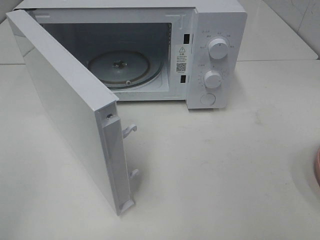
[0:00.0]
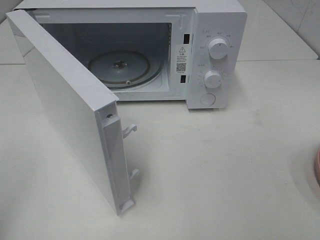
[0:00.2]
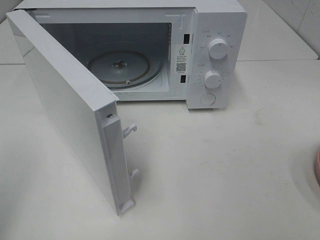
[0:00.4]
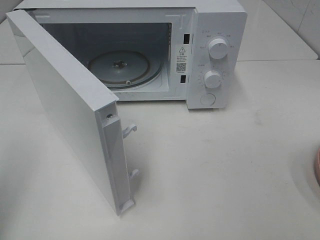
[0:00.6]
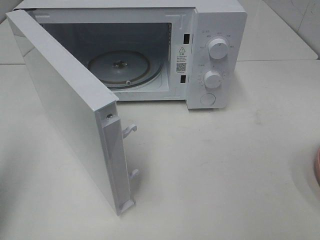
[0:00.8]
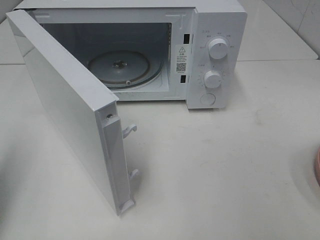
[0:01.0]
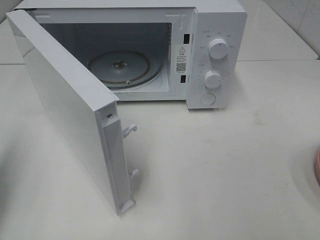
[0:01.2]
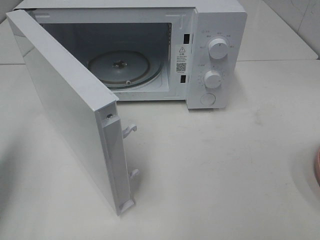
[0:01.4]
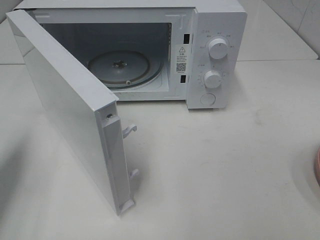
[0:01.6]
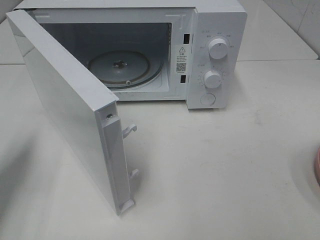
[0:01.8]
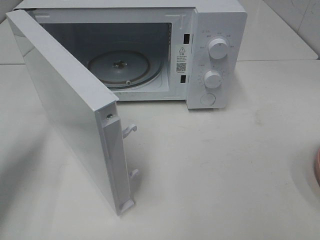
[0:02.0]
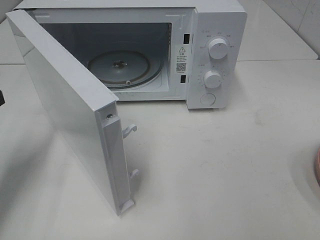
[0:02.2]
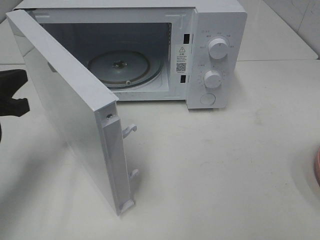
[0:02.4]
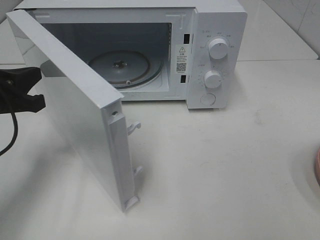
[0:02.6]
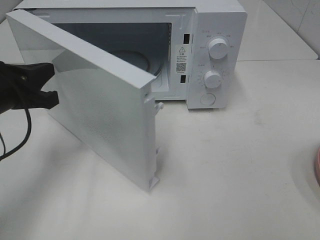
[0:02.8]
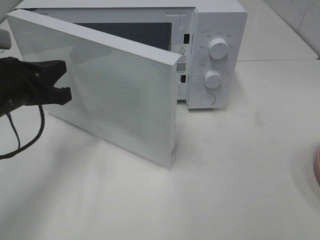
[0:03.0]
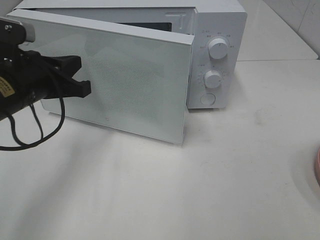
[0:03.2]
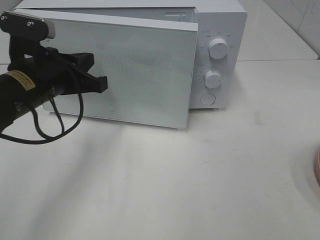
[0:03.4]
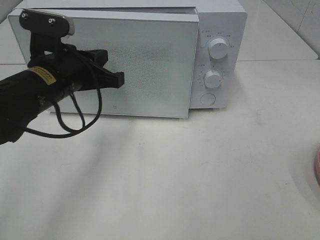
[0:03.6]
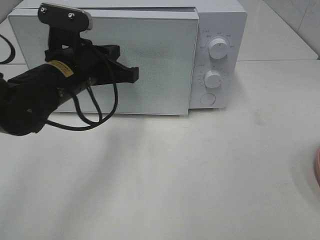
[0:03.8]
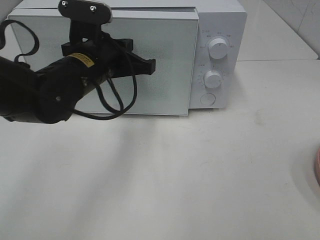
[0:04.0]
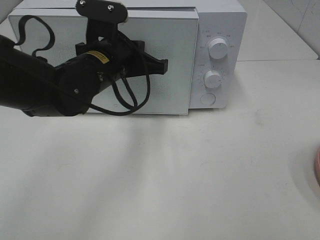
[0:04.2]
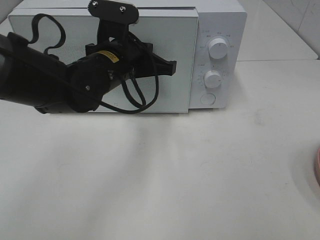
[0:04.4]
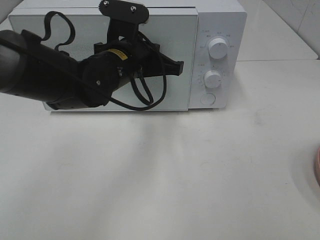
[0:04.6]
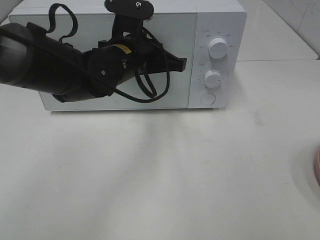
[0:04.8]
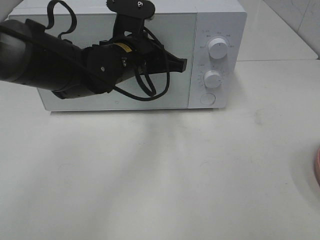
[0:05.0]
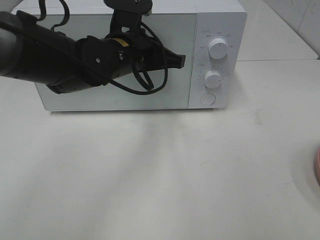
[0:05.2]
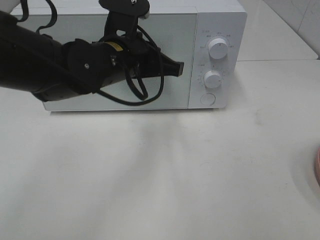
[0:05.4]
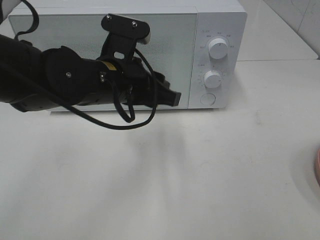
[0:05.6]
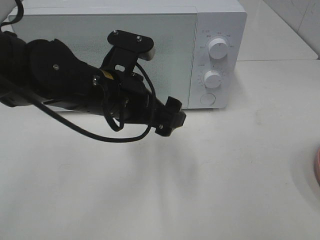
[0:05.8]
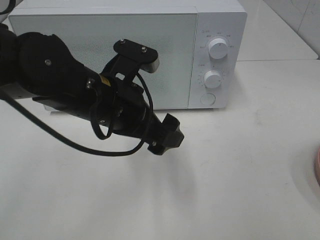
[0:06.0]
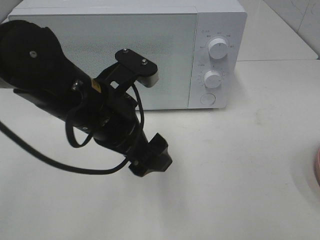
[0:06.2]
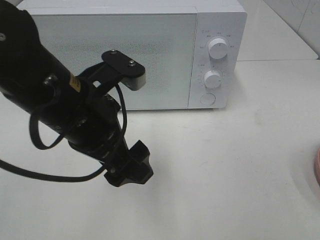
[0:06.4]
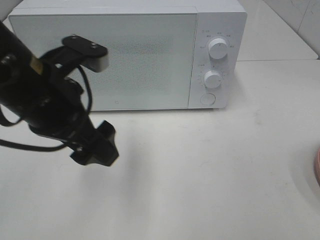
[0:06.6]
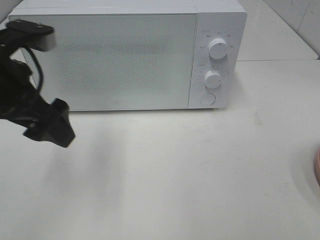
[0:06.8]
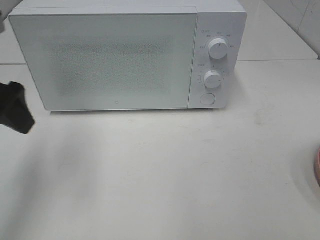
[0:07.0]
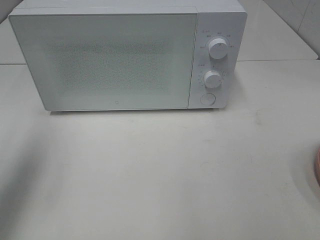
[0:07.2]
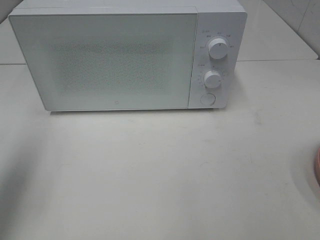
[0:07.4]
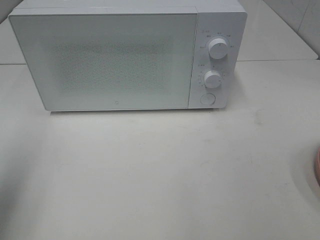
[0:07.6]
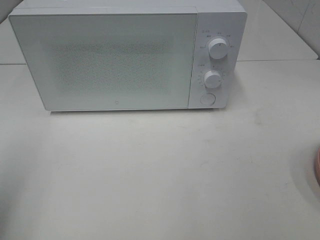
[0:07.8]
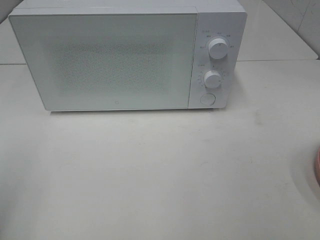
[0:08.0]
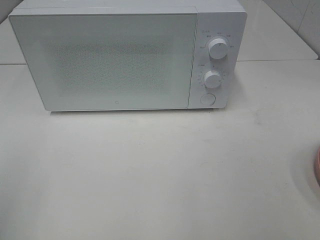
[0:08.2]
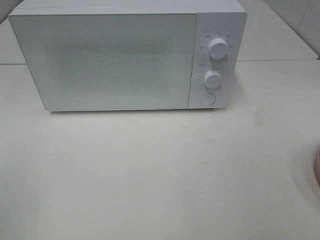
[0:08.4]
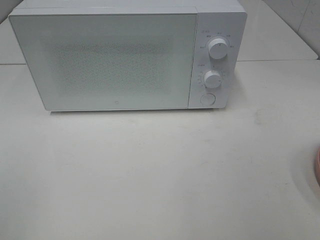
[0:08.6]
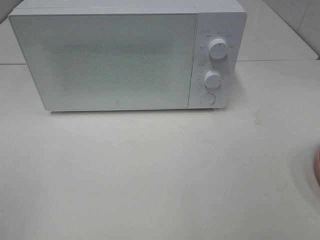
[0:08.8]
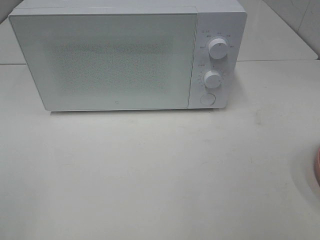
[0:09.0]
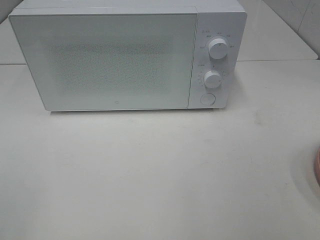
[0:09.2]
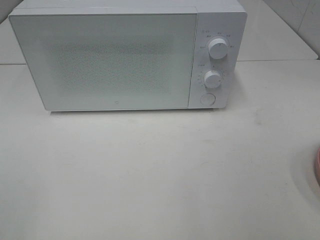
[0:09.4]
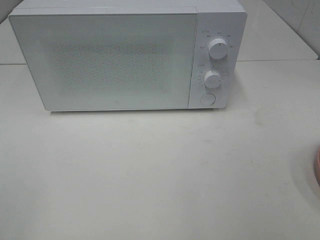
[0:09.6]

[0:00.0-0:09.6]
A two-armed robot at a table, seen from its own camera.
Task of the whole recording: Heat the burger.
Step, 0:00.0 to 0:05.6: Left hand: close the microwave door.
0:00.0 to 0:01.6: The left gripper moves forward and downward, approximately 20 cm, and closes its fingers.
0:01.6 to 0:03.2: The left gripper goes roughly 15 cm to the right and forward.
0:03.2 to 0:04.8: The left gripper moves to the right and forward, about 15 cm.
0:04.8 to 0:06.4: The left gripper travels backward by roughly 15 cm, and opens its fingers.
0:06.4 to 0:08.0: The left gripper shifts roughly 25 cm to the left and backward.

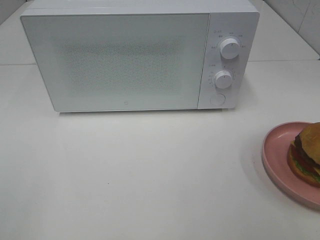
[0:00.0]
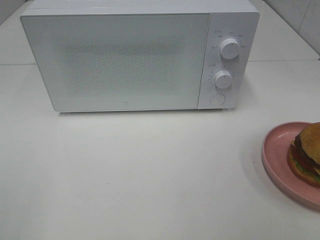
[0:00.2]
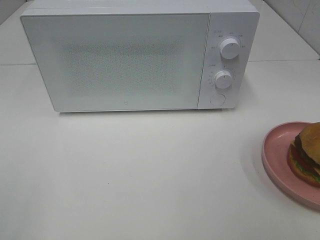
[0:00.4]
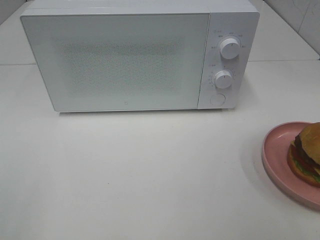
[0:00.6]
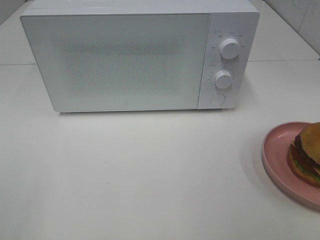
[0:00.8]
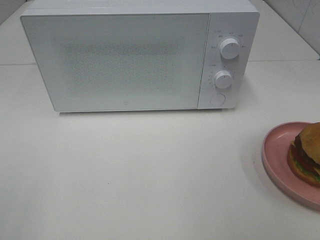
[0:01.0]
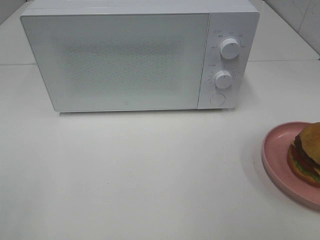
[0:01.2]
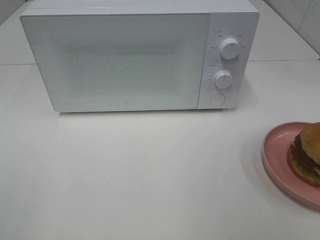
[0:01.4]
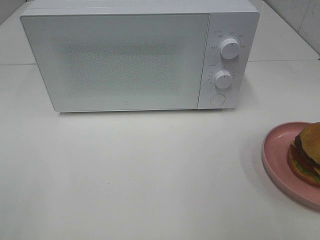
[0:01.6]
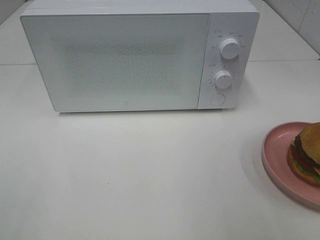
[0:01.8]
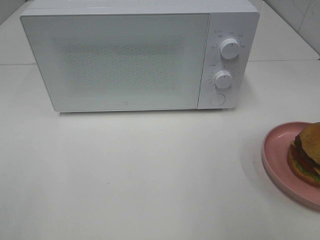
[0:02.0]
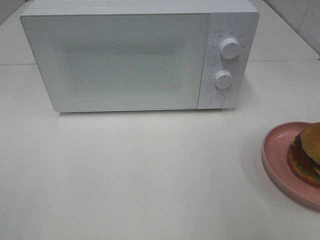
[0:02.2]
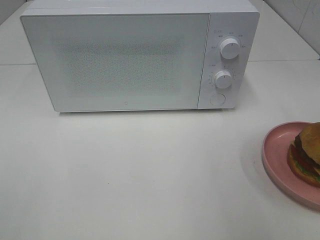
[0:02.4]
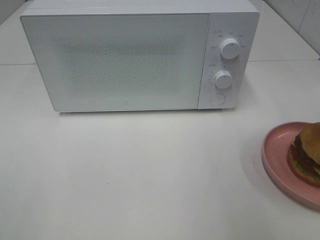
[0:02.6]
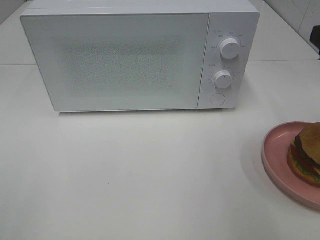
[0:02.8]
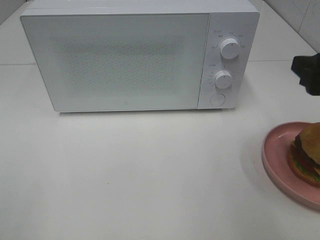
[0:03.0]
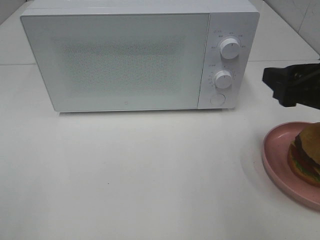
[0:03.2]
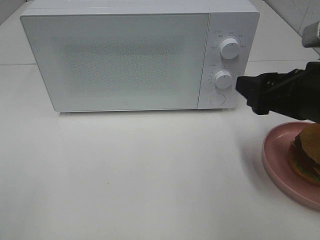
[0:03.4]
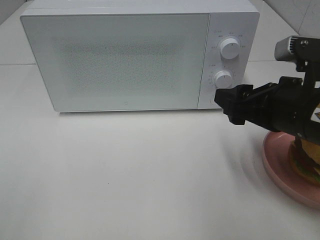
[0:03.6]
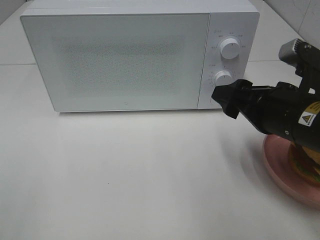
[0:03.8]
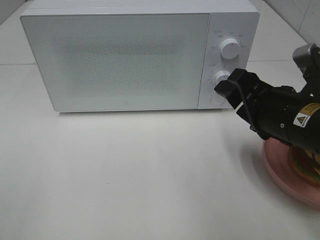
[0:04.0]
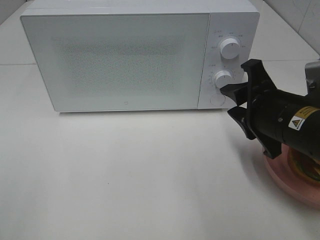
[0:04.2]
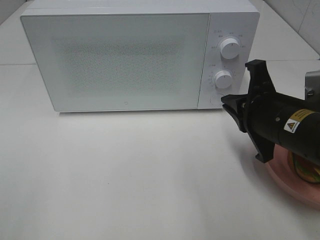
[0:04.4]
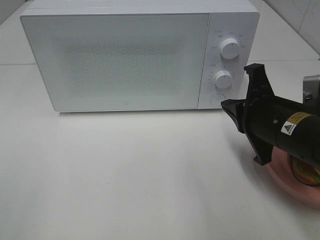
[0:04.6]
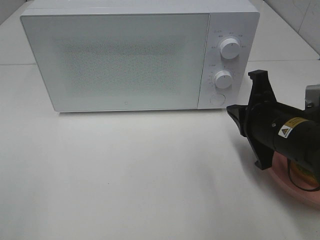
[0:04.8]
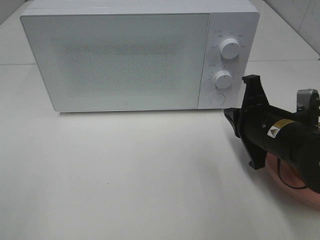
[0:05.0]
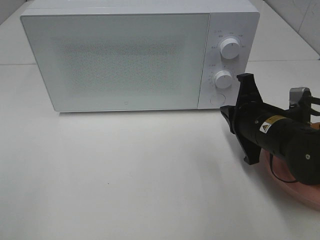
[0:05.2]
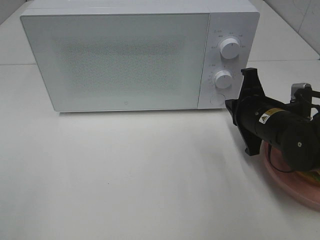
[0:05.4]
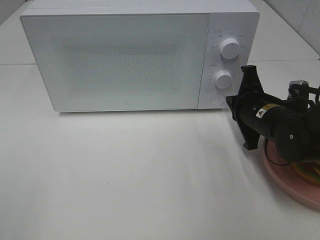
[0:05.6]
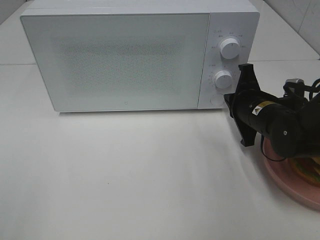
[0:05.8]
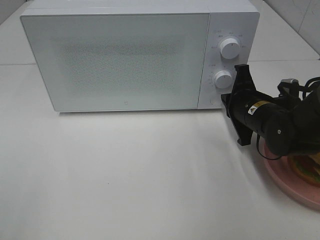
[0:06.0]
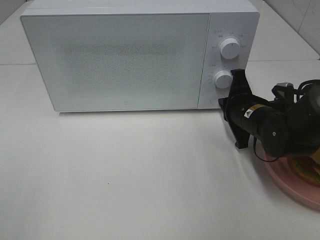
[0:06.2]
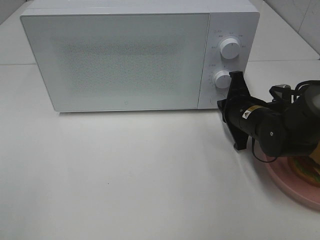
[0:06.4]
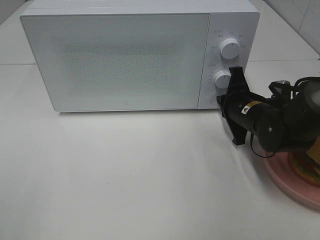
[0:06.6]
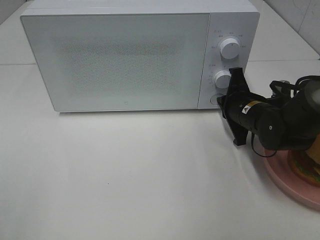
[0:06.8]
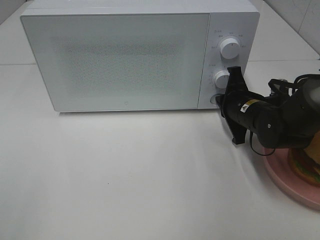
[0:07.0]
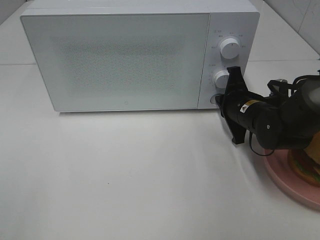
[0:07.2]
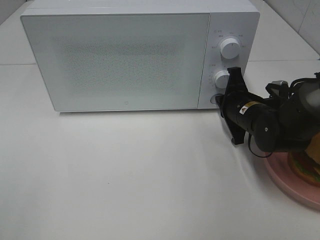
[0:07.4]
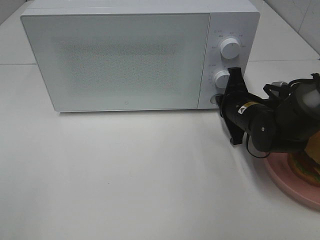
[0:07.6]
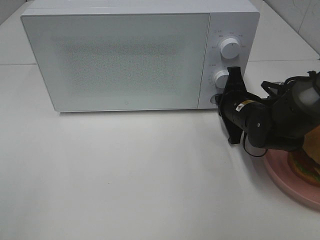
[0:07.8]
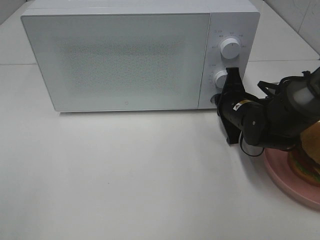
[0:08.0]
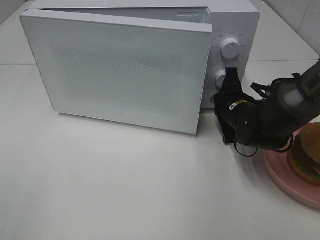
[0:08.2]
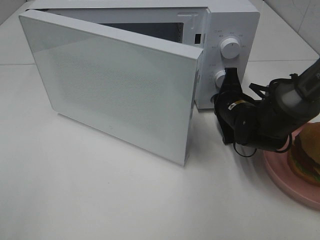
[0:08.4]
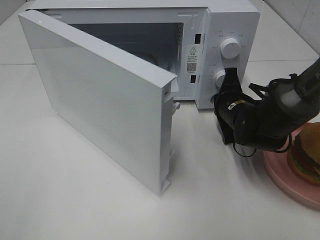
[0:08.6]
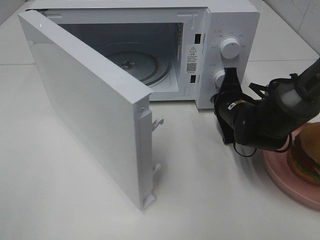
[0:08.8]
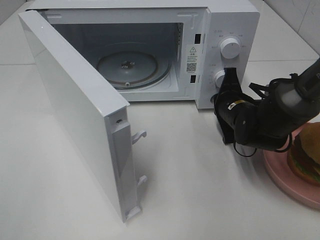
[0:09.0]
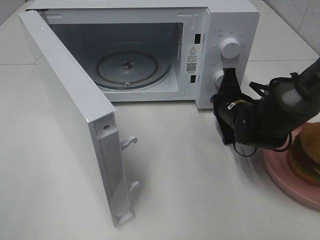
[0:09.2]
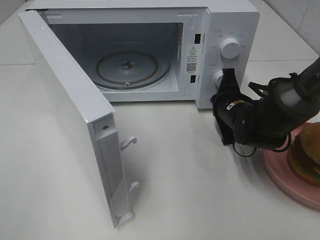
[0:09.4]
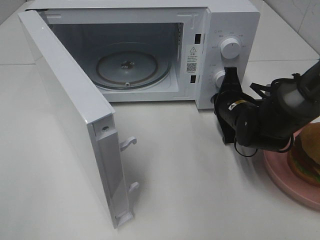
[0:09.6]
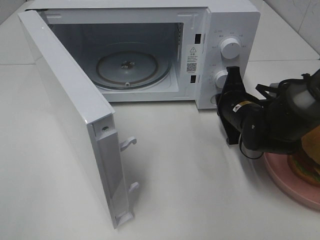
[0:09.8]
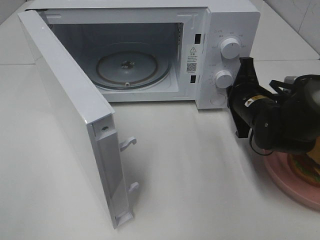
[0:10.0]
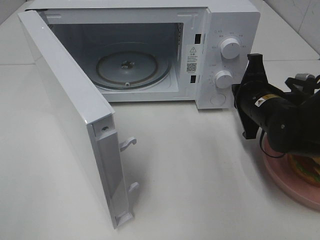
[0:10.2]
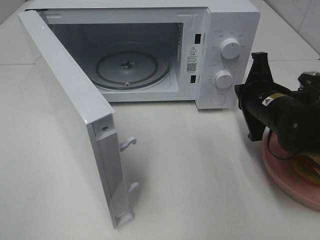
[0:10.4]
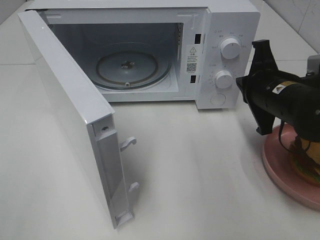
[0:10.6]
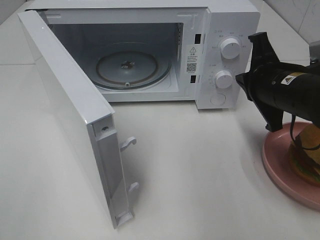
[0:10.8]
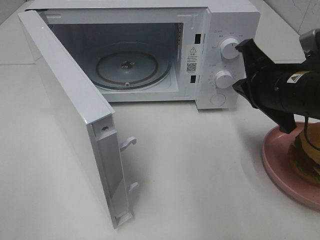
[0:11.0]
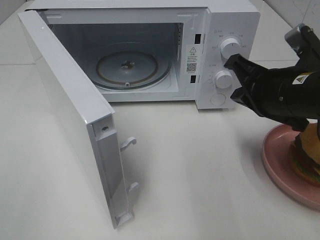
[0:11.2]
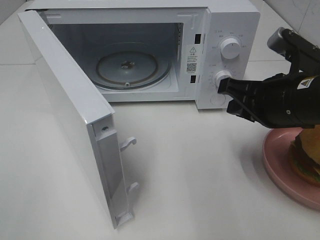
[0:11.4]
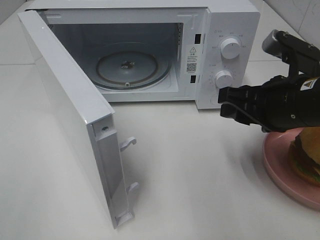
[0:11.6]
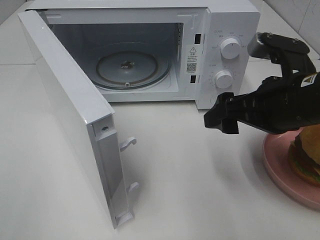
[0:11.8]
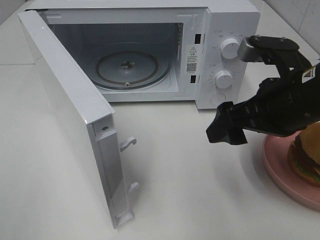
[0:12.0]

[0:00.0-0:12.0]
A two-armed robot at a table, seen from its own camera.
Task of the whole recording: Heat the burger.
Step, 0:00.0 to 0:09.8: Right hand: press the switch.
0:01.6 to 0:03.0: The right gripper is displaced forward and downward by about 15 cm.
0:03.0 to 0:04.4: The right gripper heads to the left and downward, covering some 10 cm, and closes.
0:04.4 to 0:06.0: The right gripper moves forward and downward, approximately 10 cm.
0:06.0 to 0:07.6: The grippers stay close to where they were, moving slightly.
0:09.0 to 0:10.4: The right gripper moves upward and backward, approximately 10 cm.
0:10.4 to 0:12.0: The right gripper is displaced upward and backward by about 10 cm, and opens.

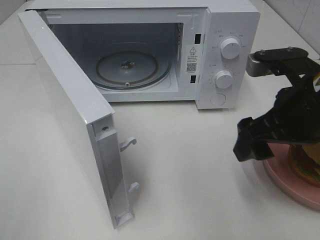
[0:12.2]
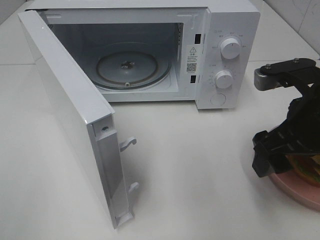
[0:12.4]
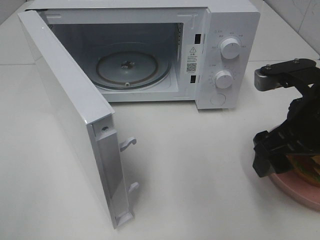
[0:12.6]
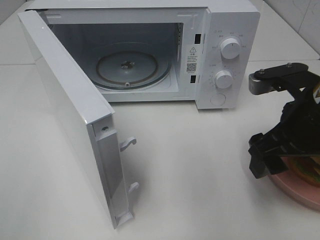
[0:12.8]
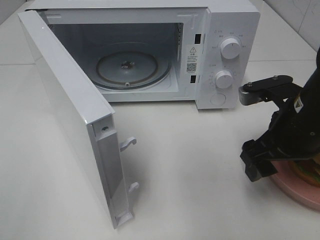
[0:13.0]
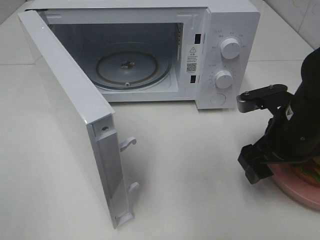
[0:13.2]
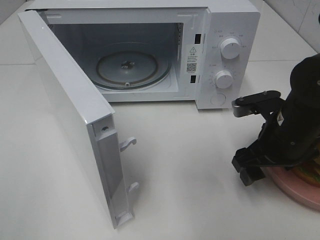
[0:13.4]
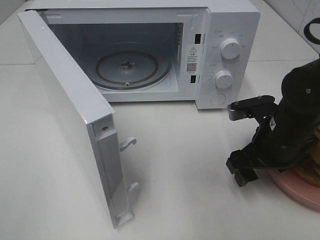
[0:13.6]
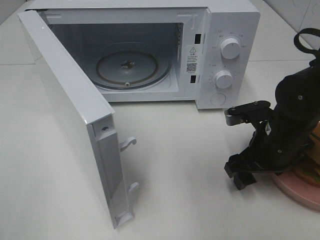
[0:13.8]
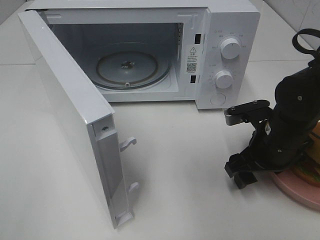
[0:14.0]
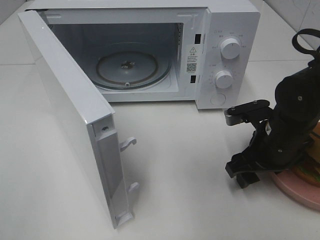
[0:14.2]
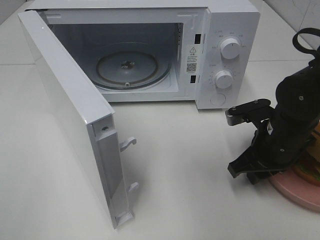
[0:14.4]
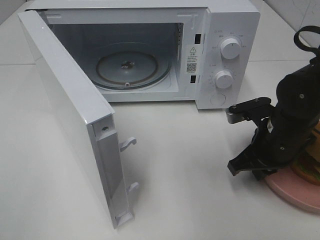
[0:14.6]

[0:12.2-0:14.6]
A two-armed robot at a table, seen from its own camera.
Task of the whole recording: Heat the burger.
0:12.2 to 0:13.4: The right gripper goes roughly 10 cm downward.
0:13.4 to 0:14.6: The right gripper closes.
